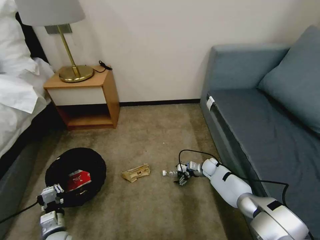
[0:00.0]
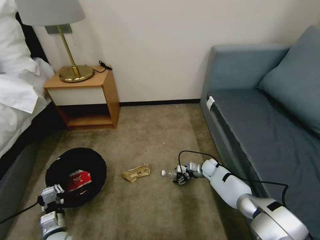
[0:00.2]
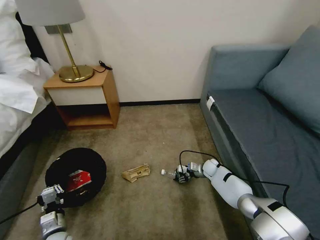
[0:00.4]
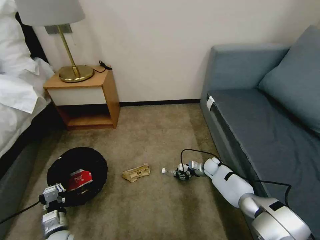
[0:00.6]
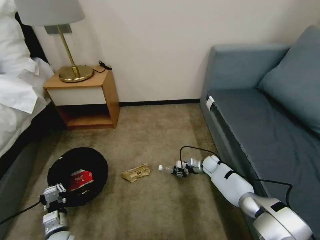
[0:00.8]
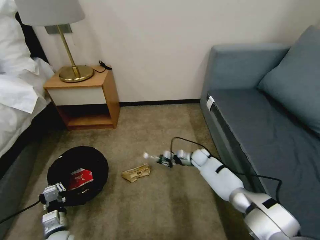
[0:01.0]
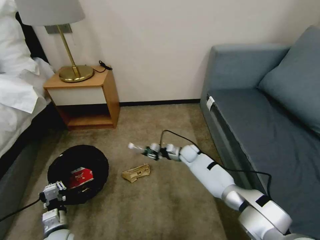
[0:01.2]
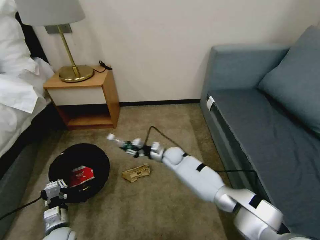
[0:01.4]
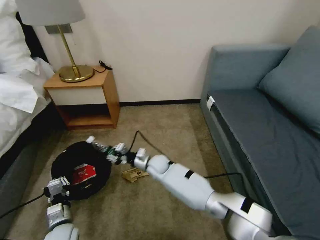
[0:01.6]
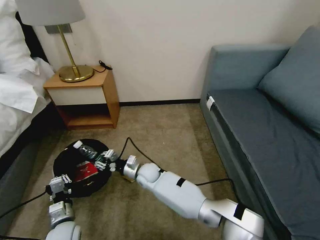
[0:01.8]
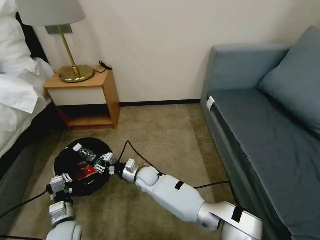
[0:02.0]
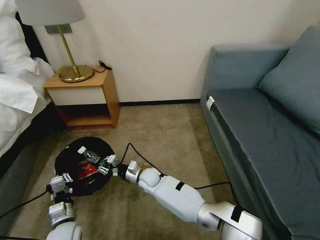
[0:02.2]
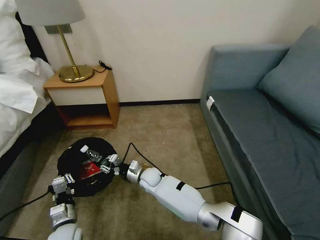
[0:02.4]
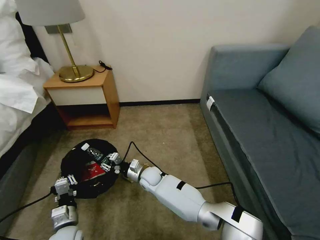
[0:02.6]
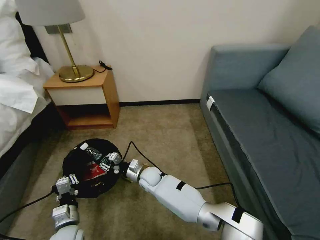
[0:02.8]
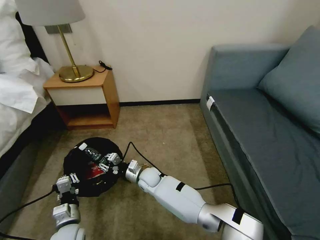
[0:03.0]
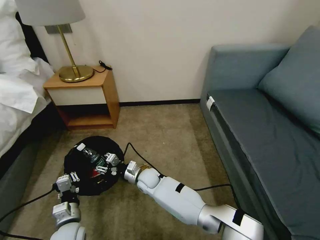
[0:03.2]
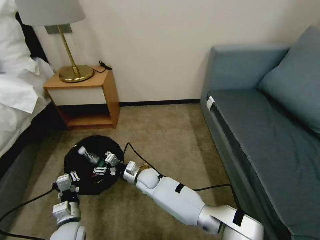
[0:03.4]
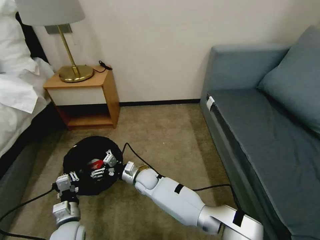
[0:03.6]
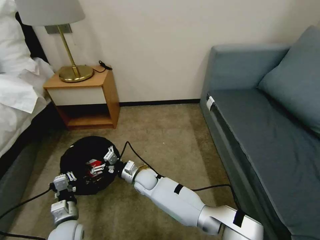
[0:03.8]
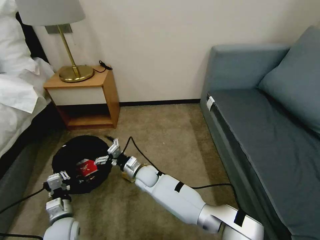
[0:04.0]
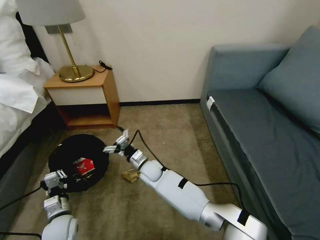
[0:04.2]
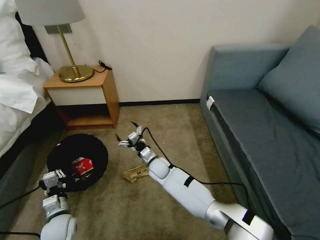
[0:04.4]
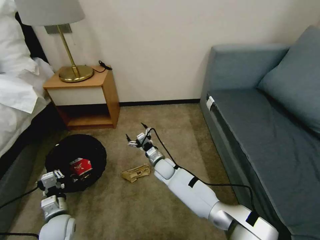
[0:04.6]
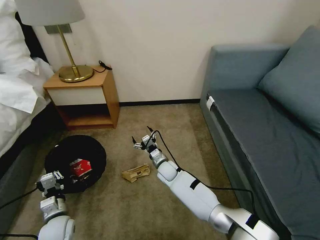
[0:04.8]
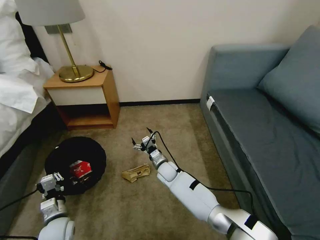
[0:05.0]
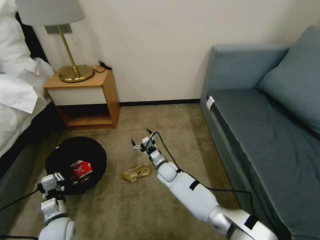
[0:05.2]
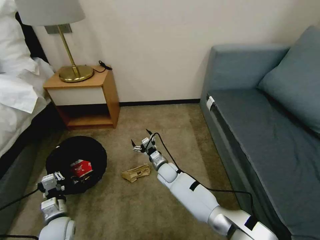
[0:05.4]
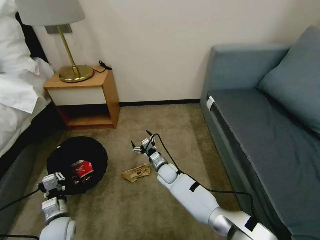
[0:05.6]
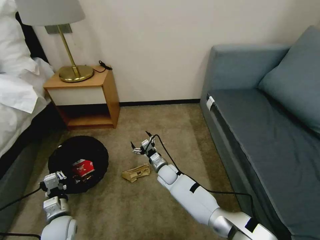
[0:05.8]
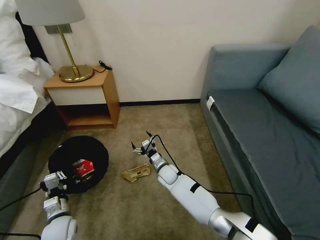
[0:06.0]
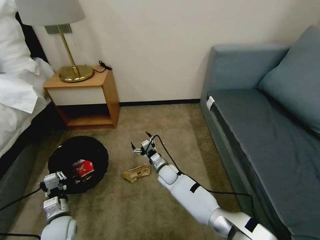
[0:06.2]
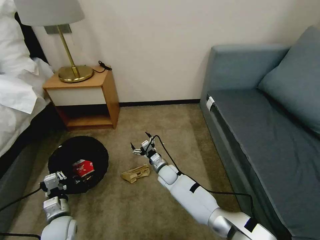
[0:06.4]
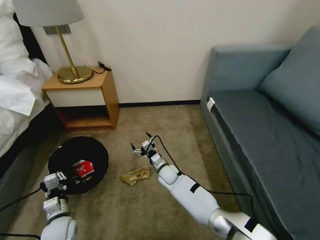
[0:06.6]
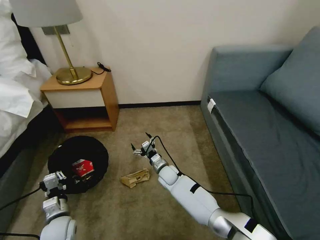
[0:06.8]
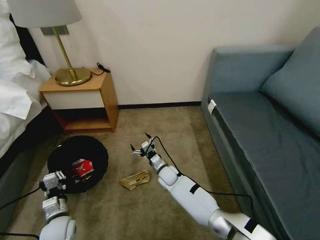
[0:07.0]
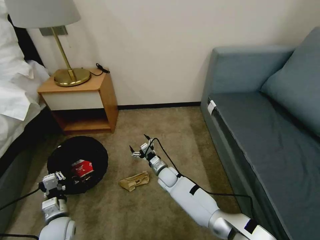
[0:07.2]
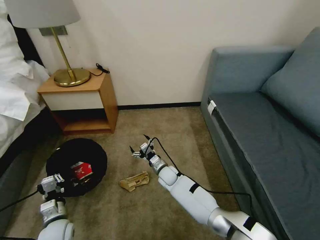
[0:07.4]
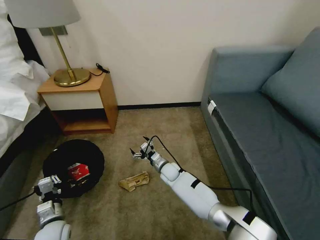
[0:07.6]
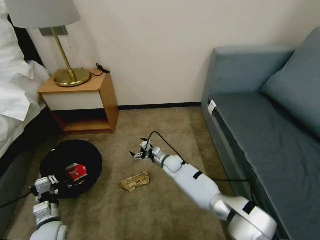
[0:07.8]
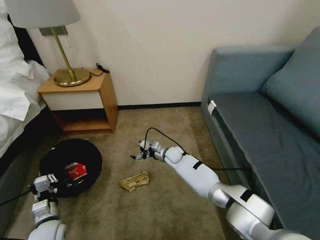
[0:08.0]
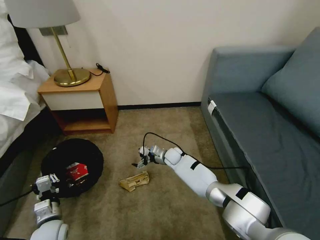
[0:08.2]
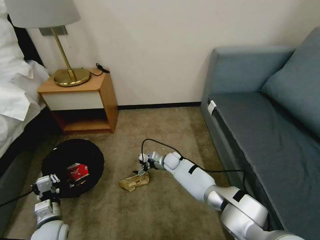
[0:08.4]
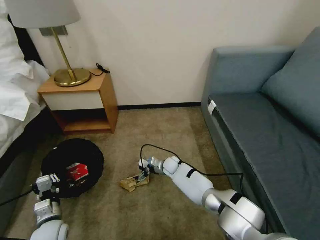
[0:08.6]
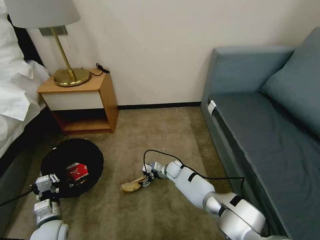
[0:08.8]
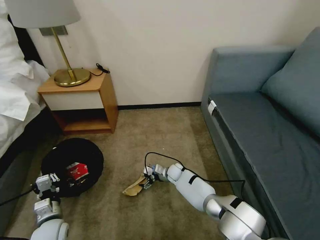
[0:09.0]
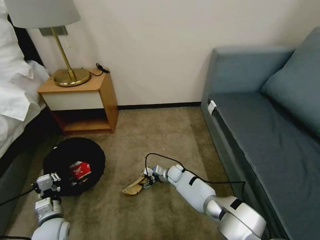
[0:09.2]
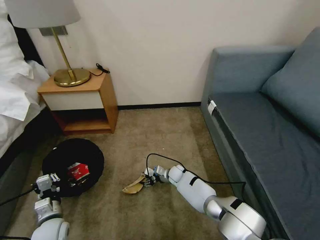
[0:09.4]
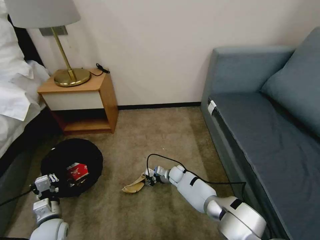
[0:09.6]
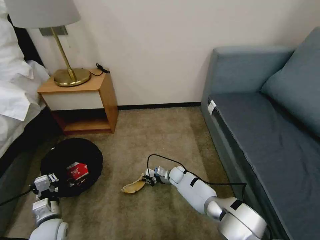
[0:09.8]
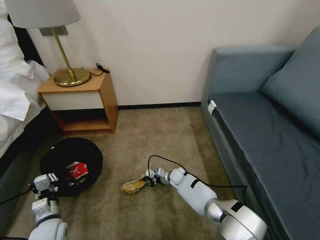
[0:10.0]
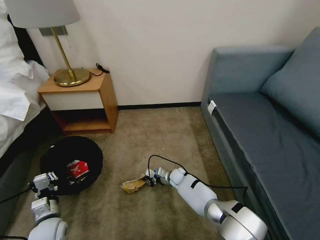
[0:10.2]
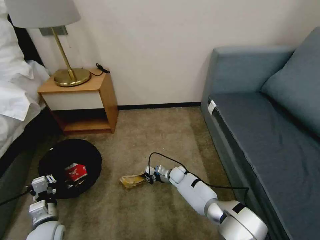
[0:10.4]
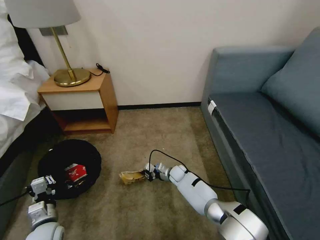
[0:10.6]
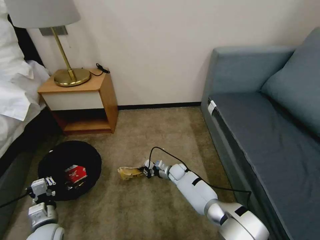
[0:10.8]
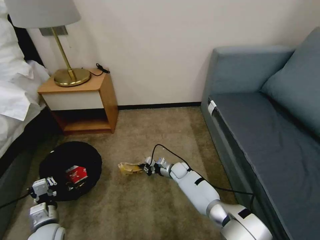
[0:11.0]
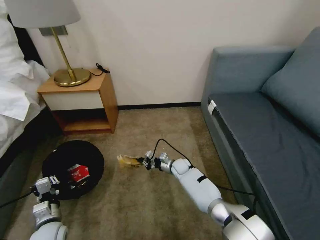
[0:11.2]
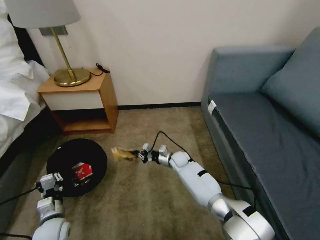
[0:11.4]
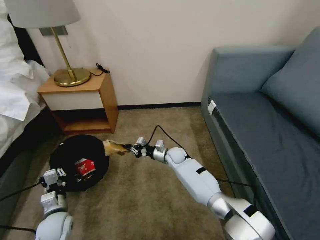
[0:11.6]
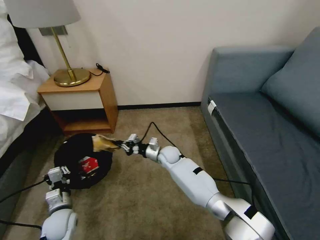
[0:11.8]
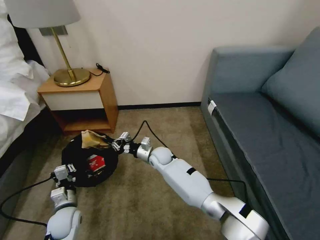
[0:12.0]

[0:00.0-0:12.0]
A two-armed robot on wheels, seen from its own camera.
Task of the whole recording: Pick up the trash bin, then pick up the garbage on the floor and place it into the trash bin.
0:00.0 to 0:01.6: The right gripper heads to the left, covering about 30 cm, and closes up.
0:01.6 to 0:03.0: The right gripper moves approximately 5 cm.
0:03.0 to 0:04.4: The right gripper changes place by some 5 cm, and opens up; the left gripper moves roughly 5 cm.
0:04.4 to 0:06.0: The right gripper changes place by approximately 5 cm.
0:06.0 to 0:07.6: The grippers move only a little.
0:07.6 to 0:09.0: The right gripper moves about 5 cm.
0:09.0 to 0:10.4: The right gripper closes its fingers.
0:10.4 to 0:12.0: The left gripper ends up about 5 cm from where it was. Meanwhile the right gripper travels upward and to the left by approximately 20 cm.

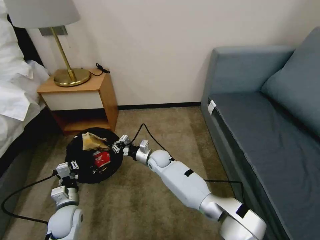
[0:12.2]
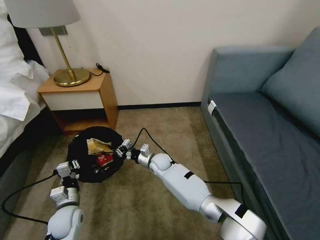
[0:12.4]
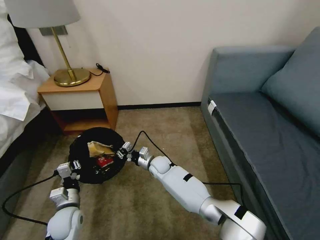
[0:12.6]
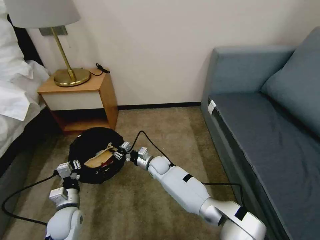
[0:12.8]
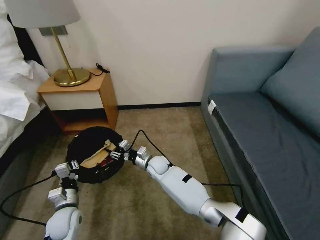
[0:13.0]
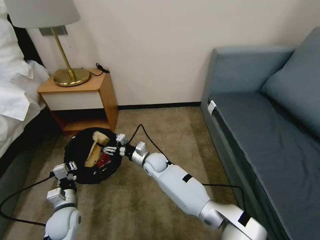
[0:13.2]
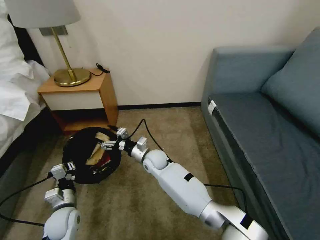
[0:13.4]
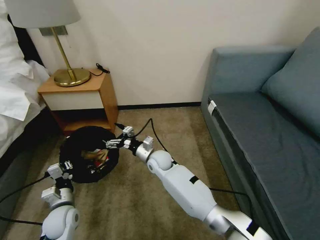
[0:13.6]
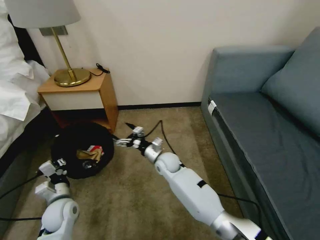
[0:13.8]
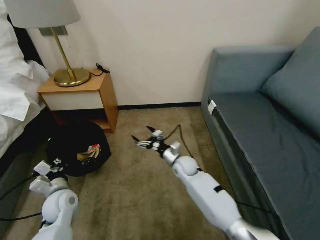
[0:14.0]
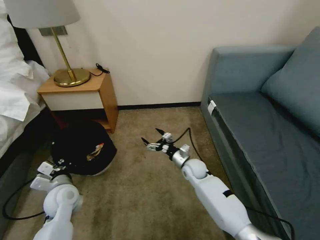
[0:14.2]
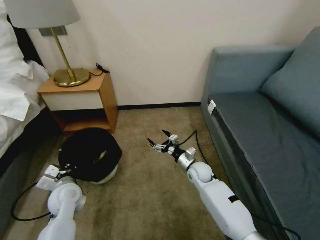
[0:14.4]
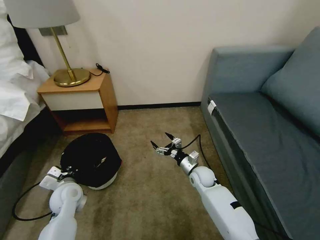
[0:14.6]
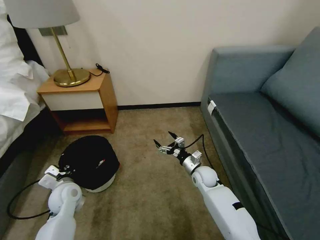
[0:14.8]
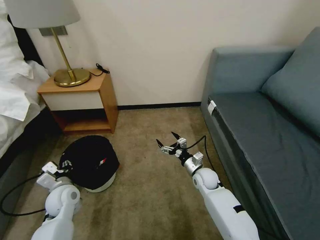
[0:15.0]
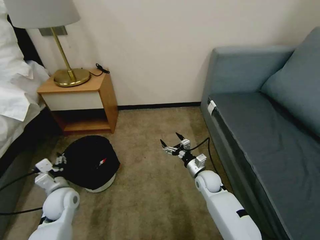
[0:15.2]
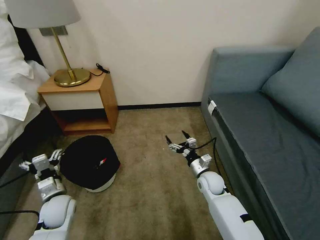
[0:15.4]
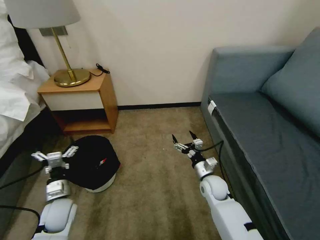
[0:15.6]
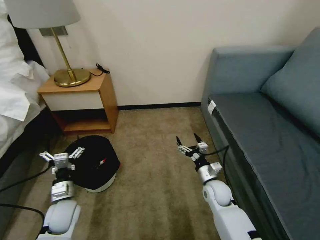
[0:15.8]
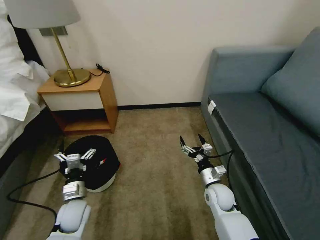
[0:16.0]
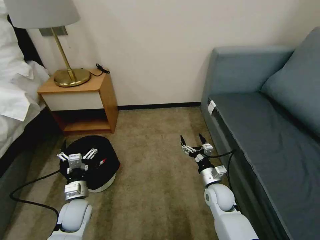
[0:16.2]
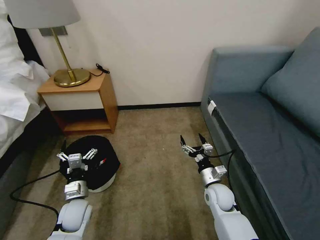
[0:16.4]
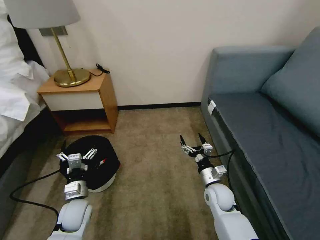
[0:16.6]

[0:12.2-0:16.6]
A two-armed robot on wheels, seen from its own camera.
Task of the whole recording: Pick up the trash bin, then pick up the garbage on the floor and place it into the trash bin.
0:12.2 to 0:13.6: The right gripper opens.
0:13.6 to 0:15.2: The right gripper is displaced to the right by about 20 cm. Meanwhile the left gripper moves approximately 5 cm, and opens its fingers.
0:15.2 to 0:16.6: The left gripper changes place by roughly 5 cm. Meanwhile the right gripper heads backward, covering about 5 cm.

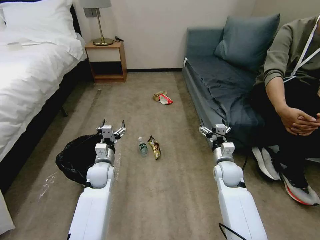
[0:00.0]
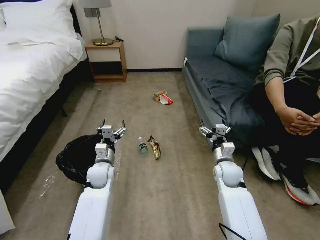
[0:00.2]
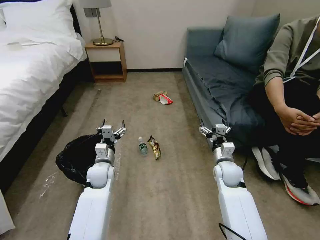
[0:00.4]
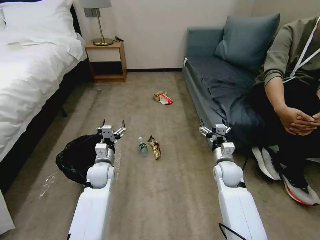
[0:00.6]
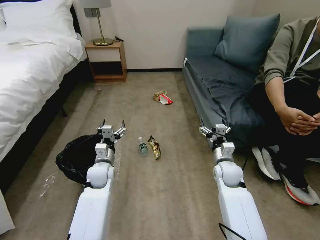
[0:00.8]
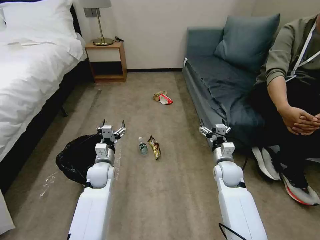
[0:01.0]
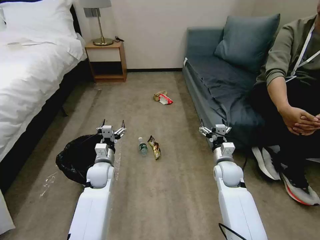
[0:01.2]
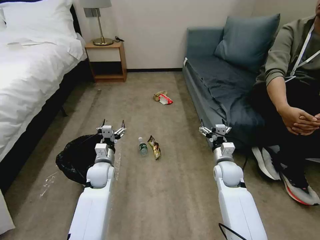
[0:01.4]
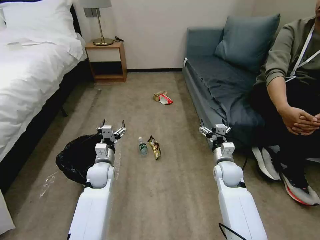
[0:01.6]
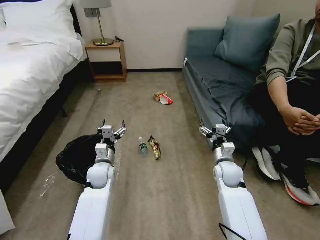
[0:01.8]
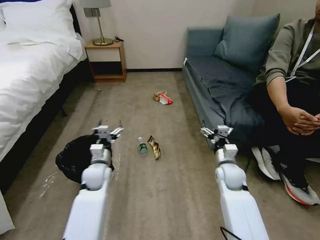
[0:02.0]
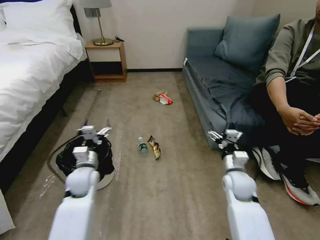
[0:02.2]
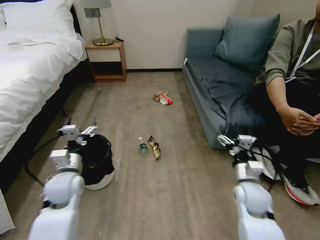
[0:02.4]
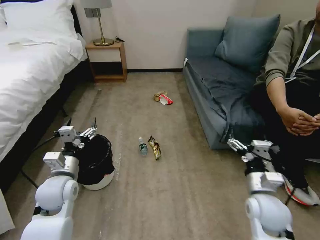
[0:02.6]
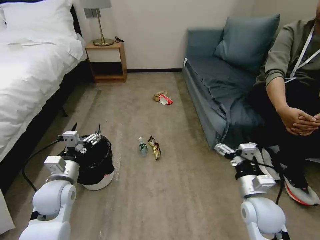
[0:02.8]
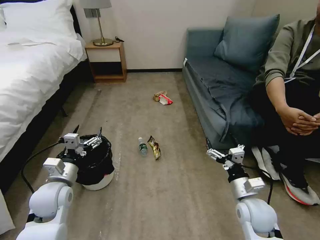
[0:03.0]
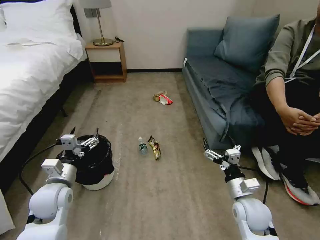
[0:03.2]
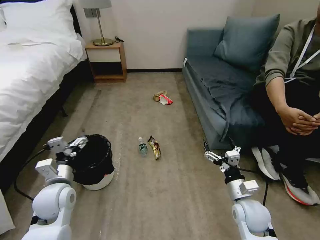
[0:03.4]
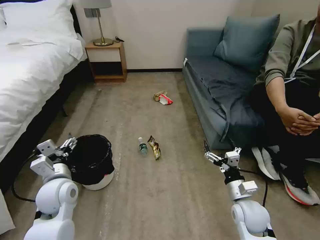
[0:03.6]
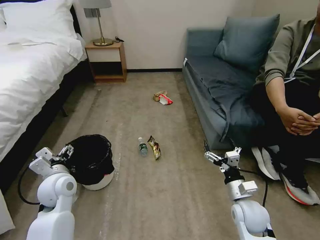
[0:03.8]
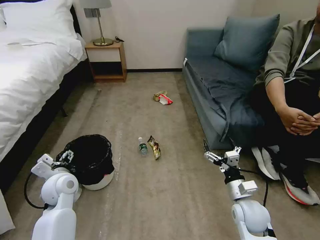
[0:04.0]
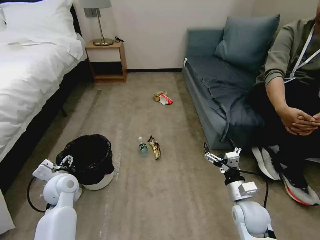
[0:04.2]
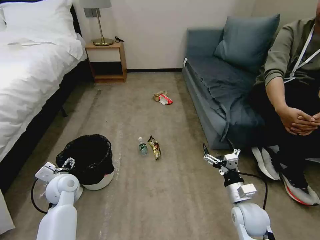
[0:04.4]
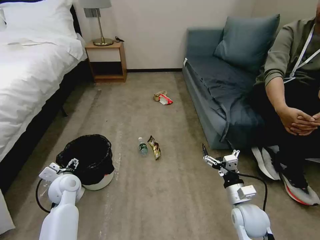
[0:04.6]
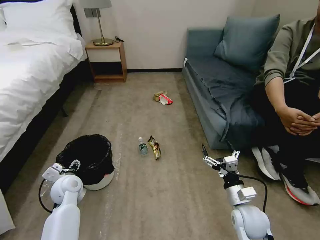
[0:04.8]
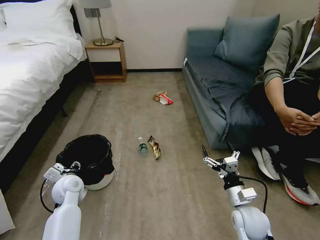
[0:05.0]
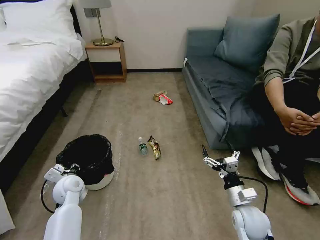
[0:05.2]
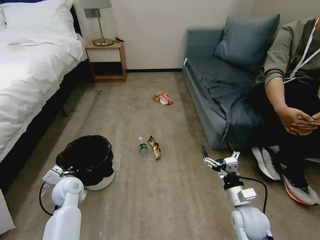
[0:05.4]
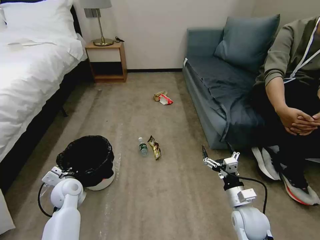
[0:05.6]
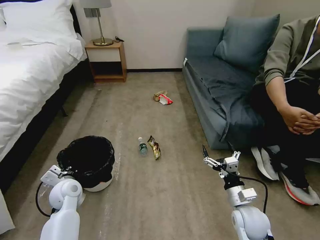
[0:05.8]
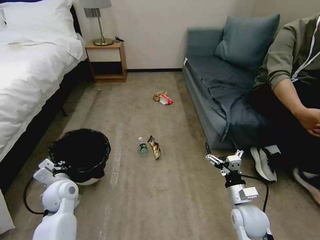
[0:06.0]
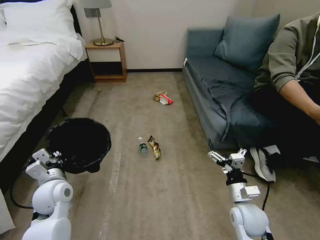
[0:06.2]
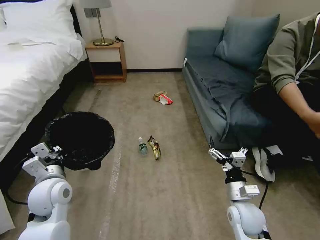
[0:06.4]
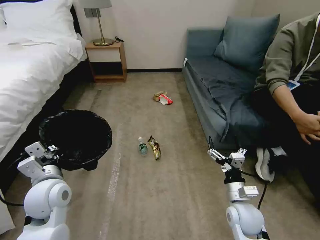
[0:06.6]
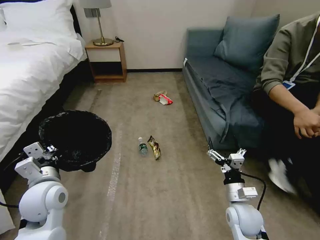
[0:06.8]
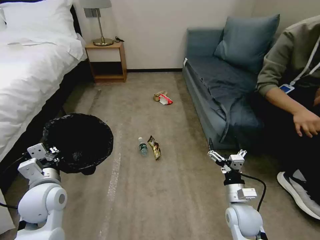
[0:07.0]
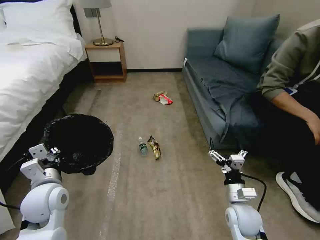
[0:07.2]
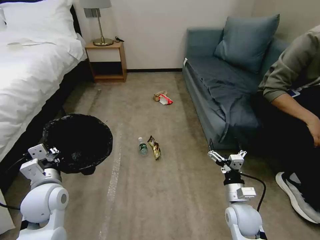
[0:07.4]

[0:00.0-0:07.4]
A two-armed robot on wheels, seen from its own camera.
Task of the whole recording: Pick up the trash bin, then pick up the garbage on the floor and place it into the trash bin.
0:01.4 to 0:03.0: The left gripper moves backward, to the left and upward, about 15 cm. Meanwhile the right gripper travels backward by about 15 cm.
0:03.0 to 0:04.4: The left gripper heads downward and forward, covering approximately 5 cm.
0:04.4 to 0:06.0: The left gripper closes up.
0:06.0 to 0:07.4: The left gripper is displaced upward by approximately 10 cm.
